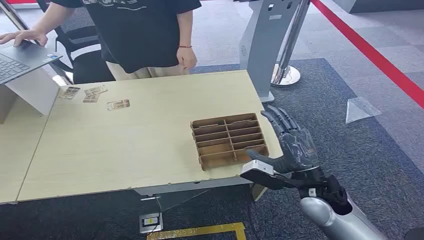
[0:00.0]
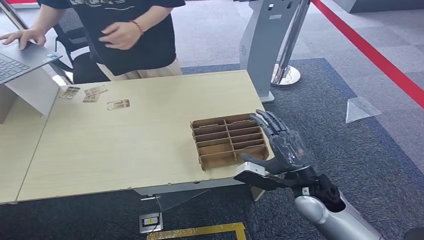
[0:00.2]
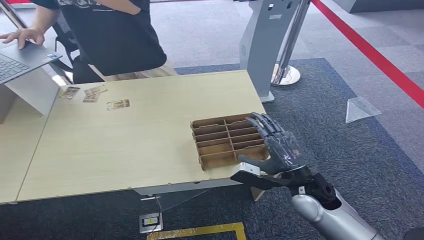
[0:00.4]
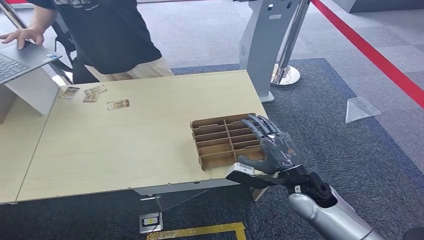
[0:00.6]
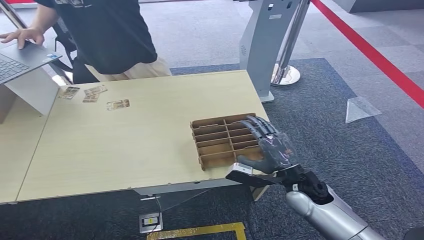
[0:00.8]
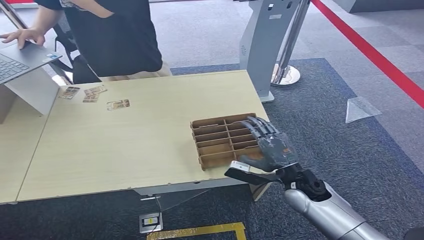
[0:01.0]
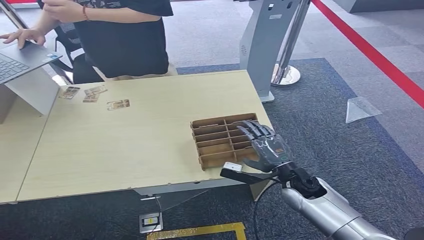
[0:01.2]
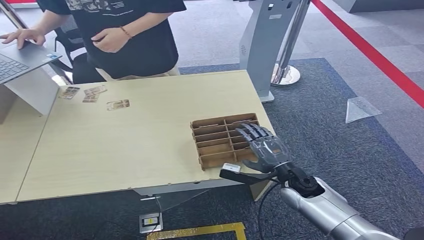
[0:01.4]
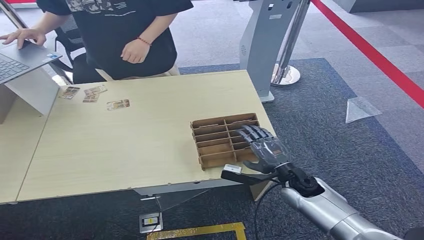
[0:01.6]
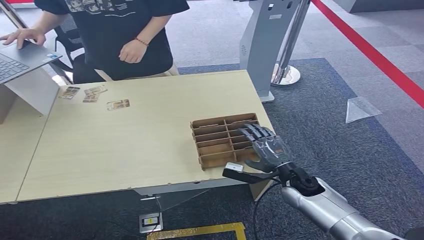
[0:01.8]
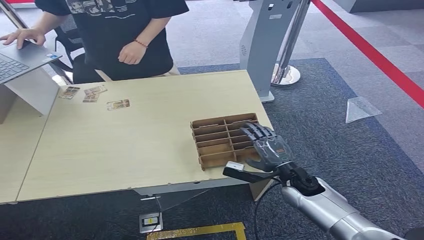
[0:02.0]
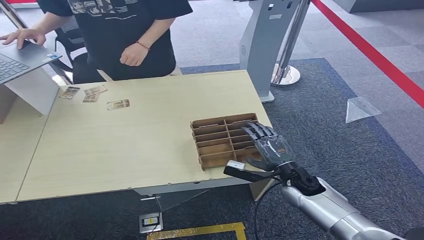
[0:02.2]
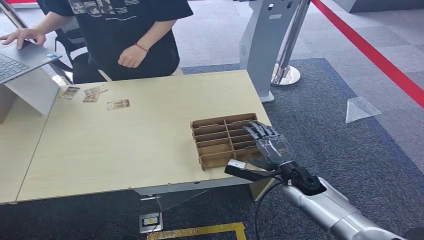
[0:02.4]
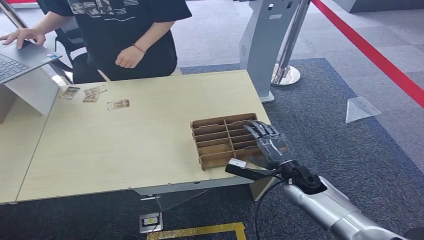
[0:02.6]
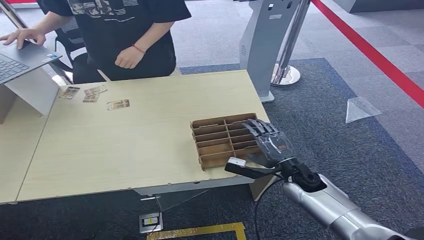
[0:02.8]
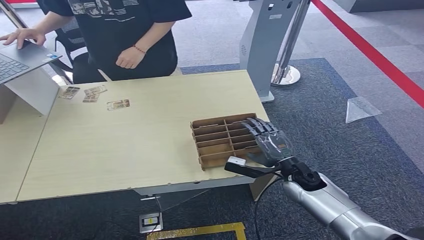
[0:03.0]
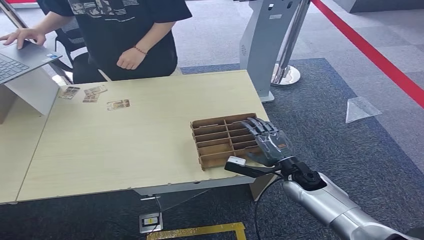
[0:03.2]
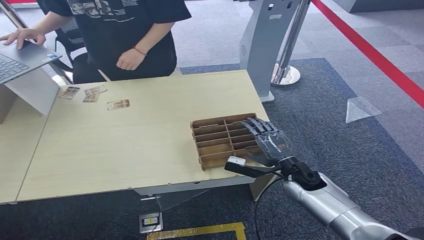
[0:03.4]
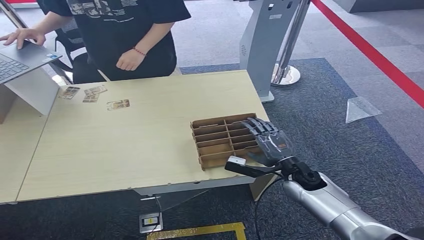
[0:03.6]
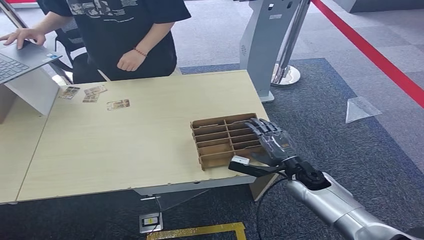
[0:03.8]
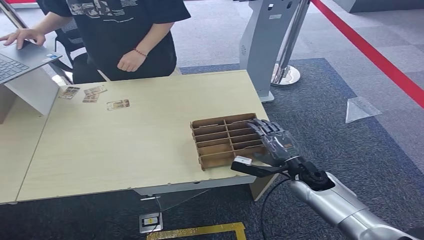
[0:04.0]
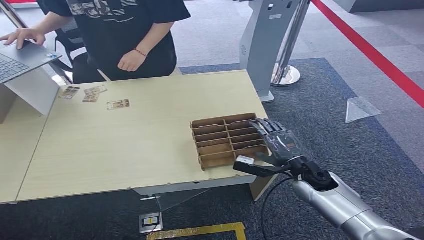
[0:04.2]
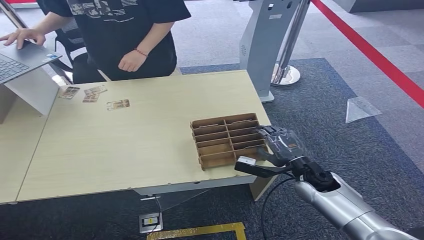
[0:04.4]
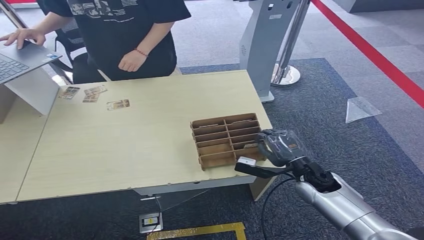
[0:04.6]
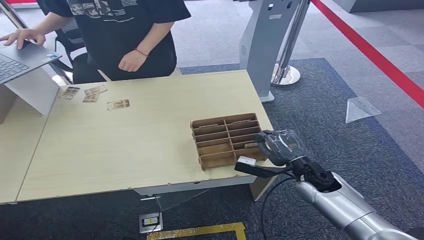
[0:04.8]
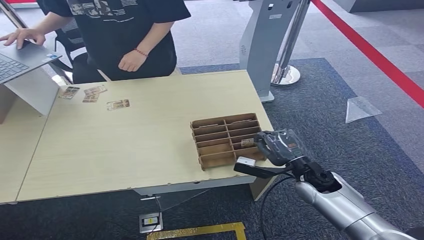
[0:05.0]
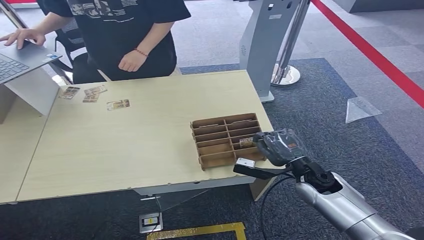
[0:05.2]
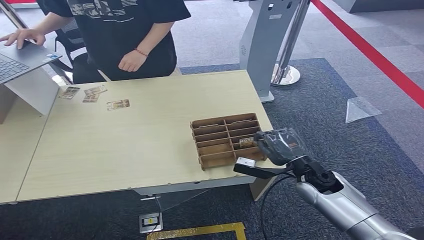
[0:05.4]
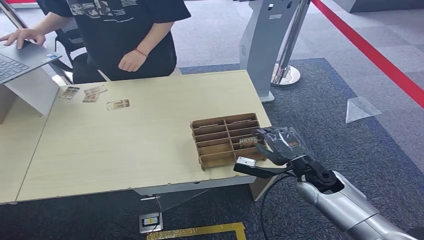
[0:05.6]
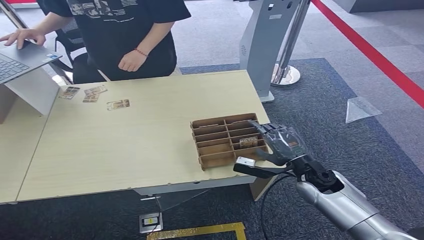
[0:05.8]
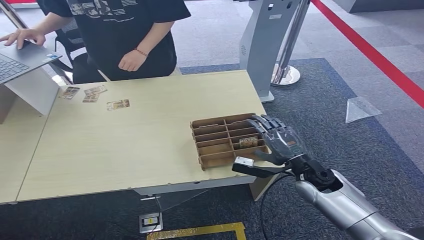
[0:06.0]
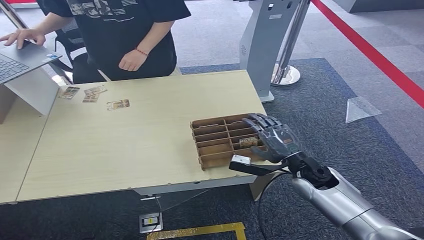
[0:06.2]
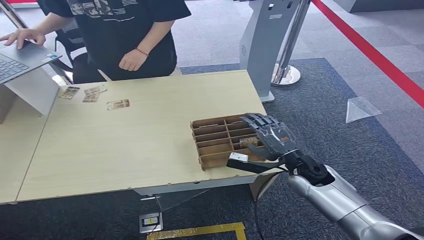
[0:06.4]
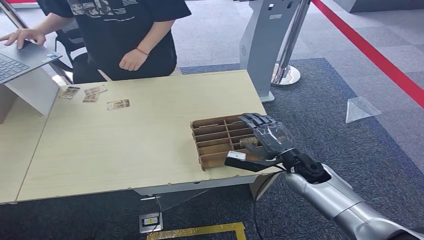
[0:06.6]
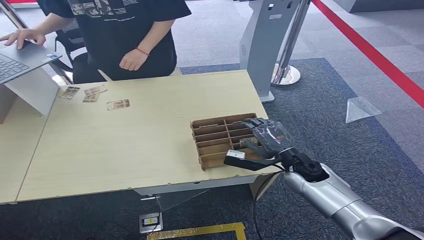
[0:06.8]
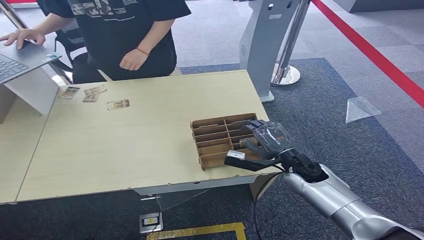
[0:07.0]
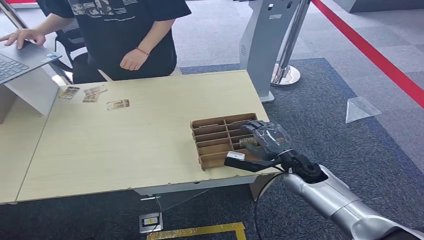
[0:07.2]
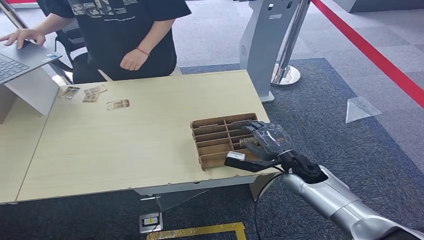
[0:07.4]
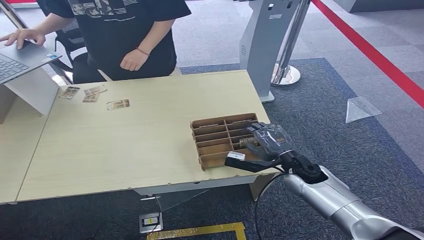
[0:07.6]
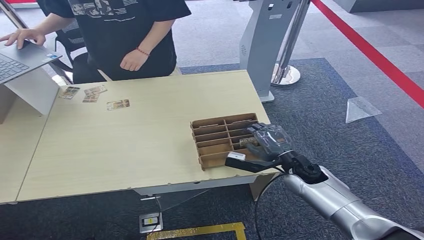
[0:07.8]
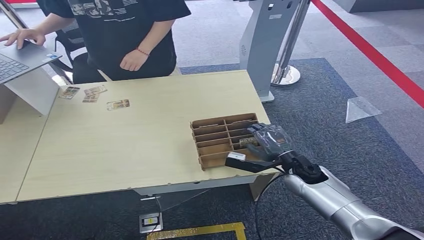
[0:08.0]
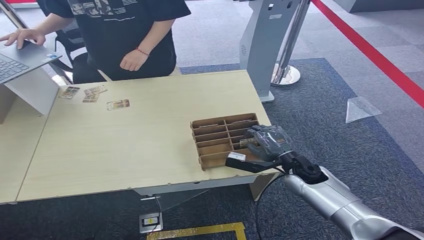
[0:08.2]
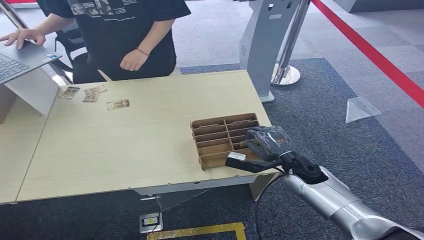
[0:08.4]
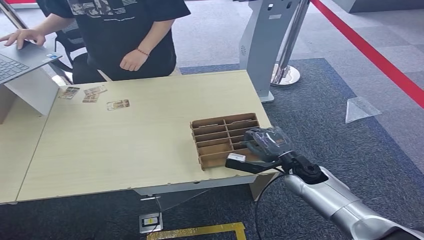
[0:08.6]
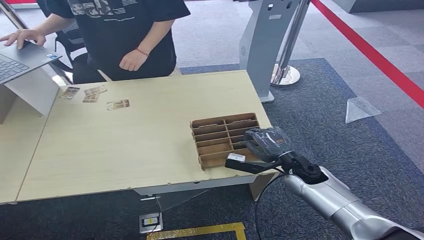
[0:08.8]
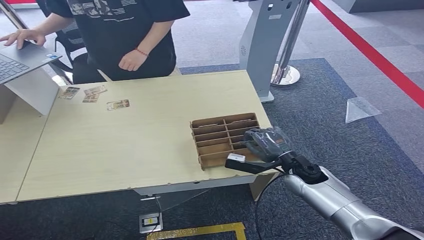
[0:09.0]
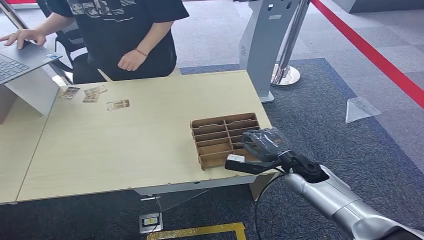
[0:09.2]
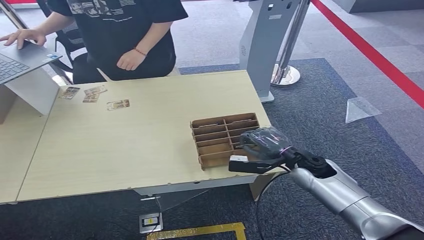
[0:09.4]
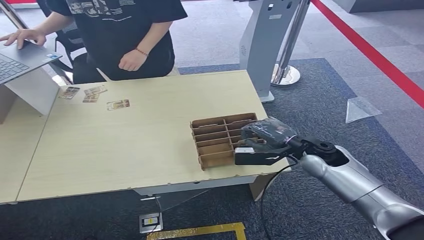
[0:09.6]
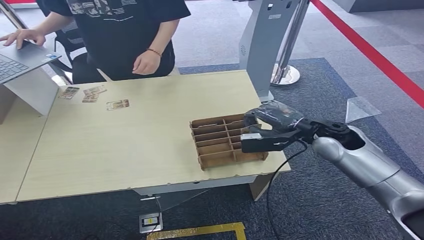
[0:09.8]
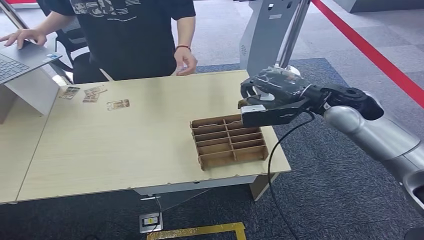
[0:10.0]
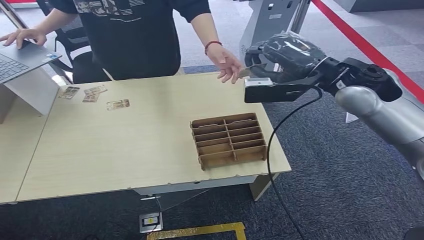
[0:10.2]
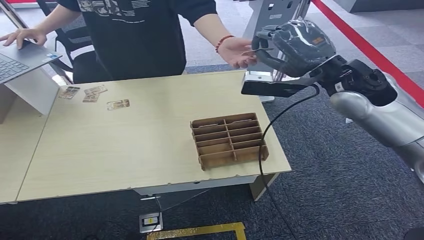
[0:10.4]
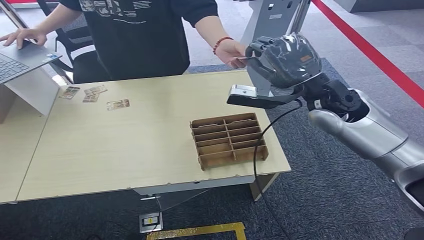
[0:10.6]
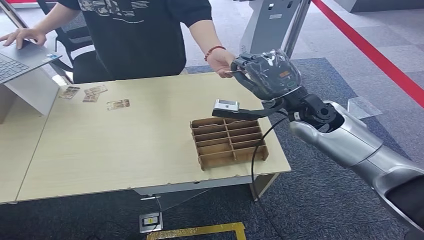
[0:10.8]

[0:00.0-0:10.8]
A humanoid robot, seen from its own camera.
Step, 0:00.0 to 0:09.6: Pick up the room card from the card holder.
Step, 0:09.8 to 0:10.8: Hand the room card to the target.
0:01.6 to 0:07.8: The hands stay close to where they were, moving slightly.
0:07.8 to 0:09.2: Both hands stay put.
